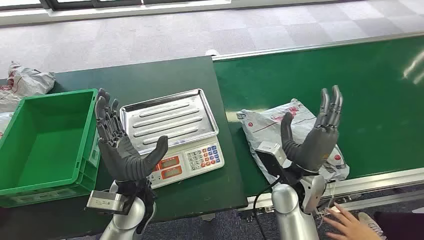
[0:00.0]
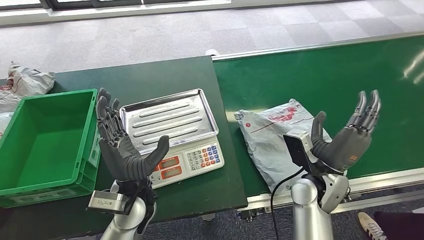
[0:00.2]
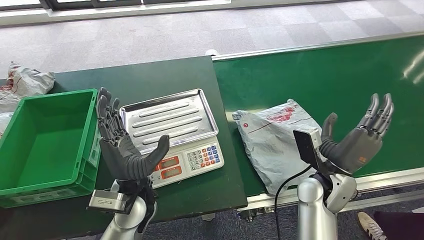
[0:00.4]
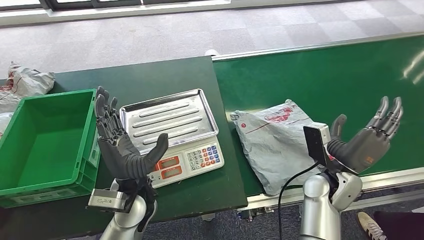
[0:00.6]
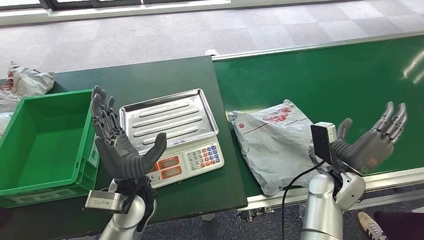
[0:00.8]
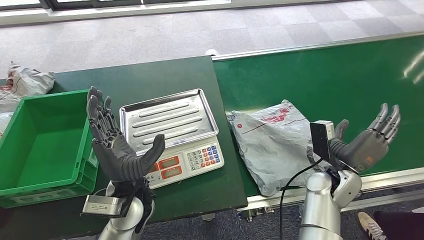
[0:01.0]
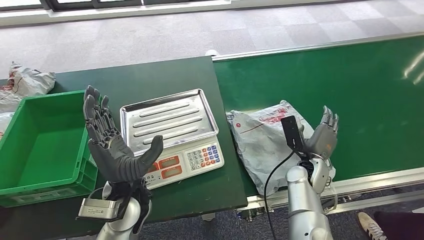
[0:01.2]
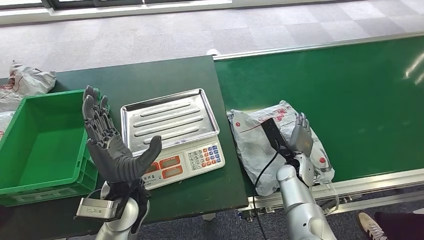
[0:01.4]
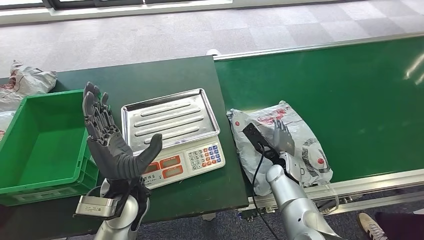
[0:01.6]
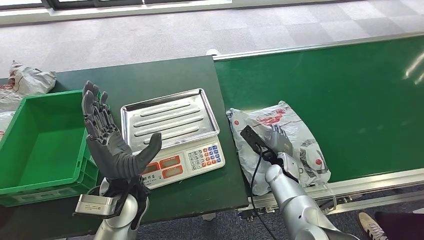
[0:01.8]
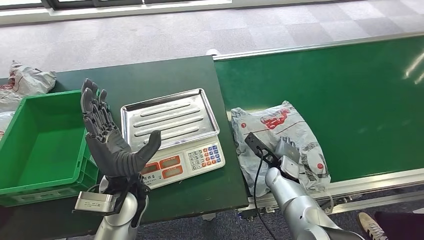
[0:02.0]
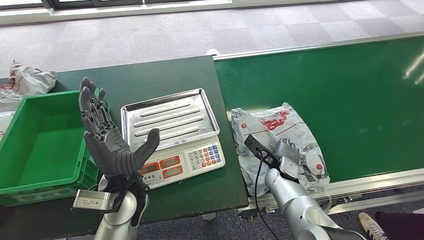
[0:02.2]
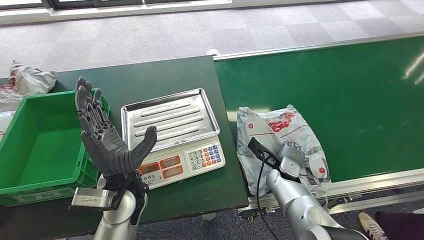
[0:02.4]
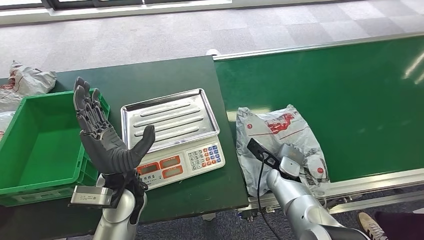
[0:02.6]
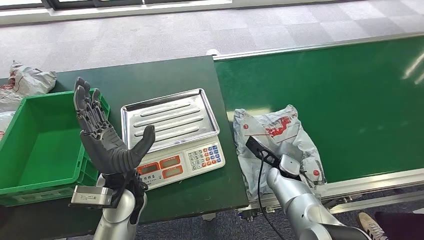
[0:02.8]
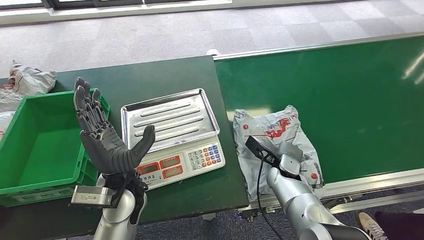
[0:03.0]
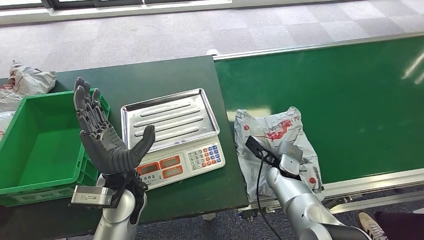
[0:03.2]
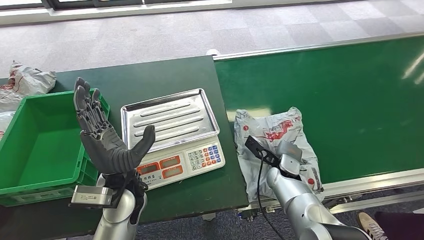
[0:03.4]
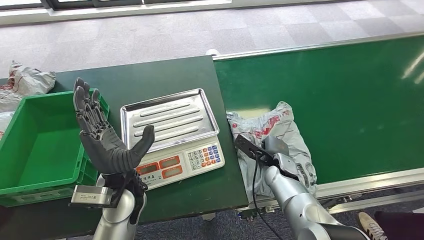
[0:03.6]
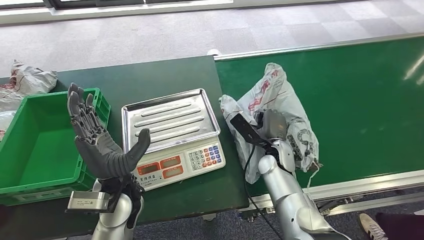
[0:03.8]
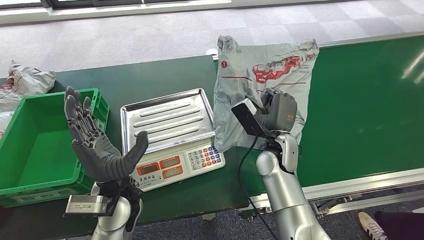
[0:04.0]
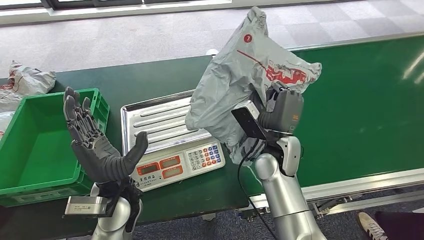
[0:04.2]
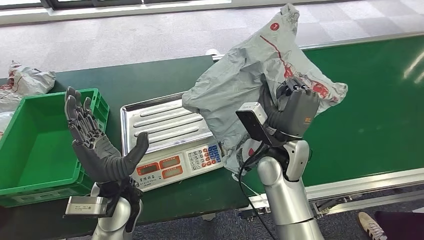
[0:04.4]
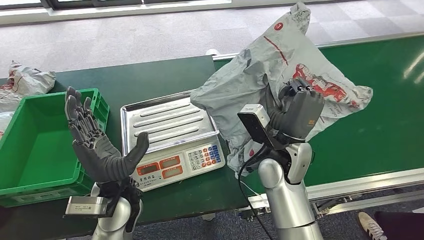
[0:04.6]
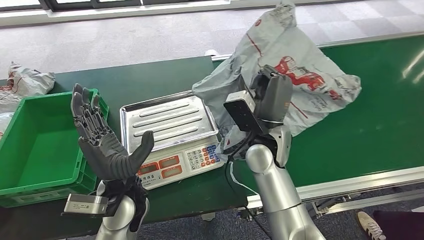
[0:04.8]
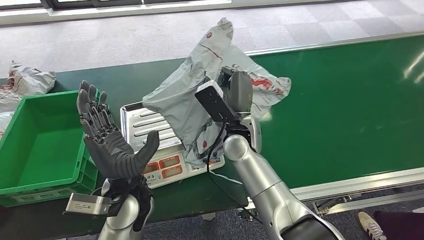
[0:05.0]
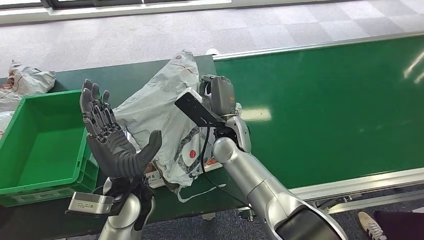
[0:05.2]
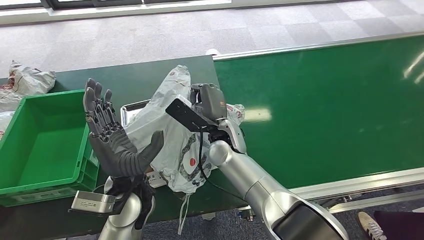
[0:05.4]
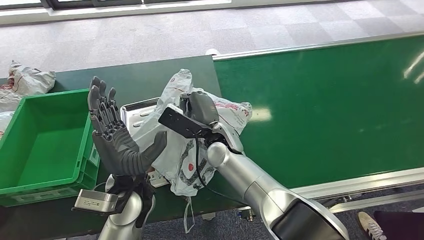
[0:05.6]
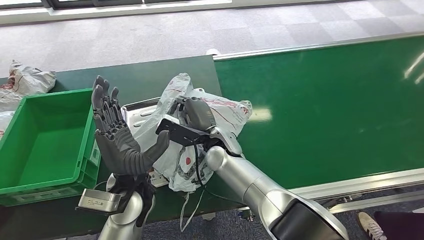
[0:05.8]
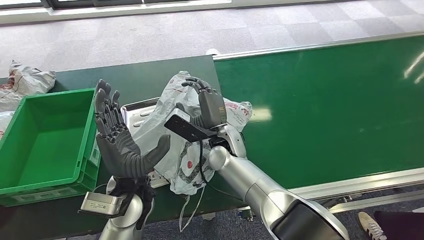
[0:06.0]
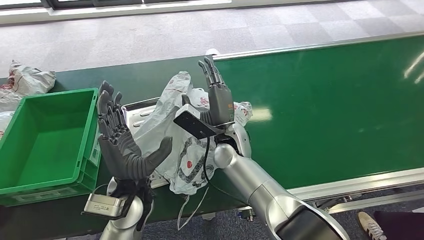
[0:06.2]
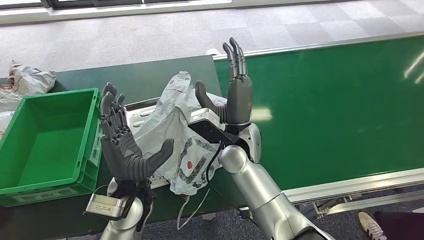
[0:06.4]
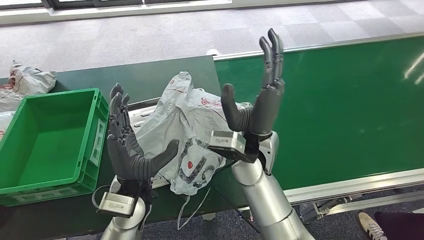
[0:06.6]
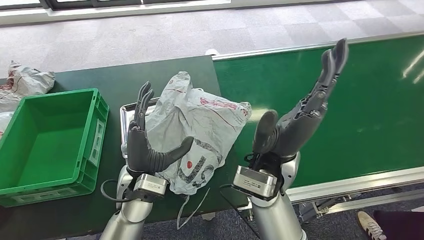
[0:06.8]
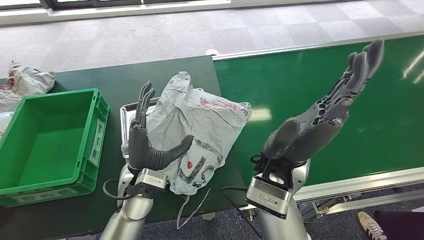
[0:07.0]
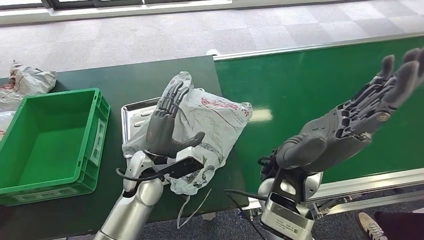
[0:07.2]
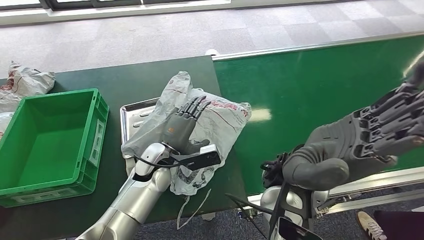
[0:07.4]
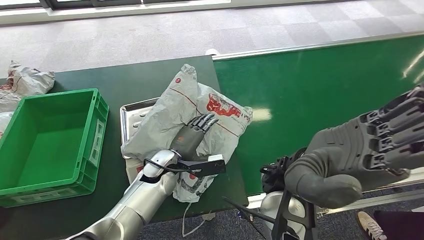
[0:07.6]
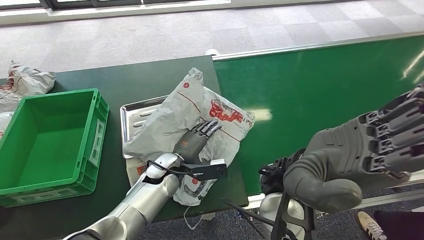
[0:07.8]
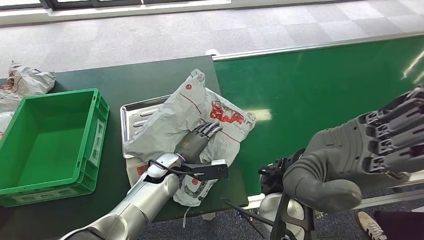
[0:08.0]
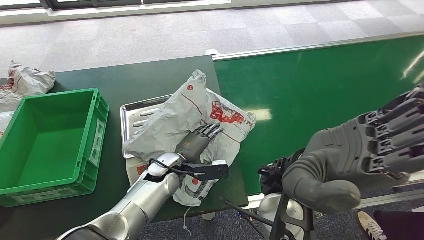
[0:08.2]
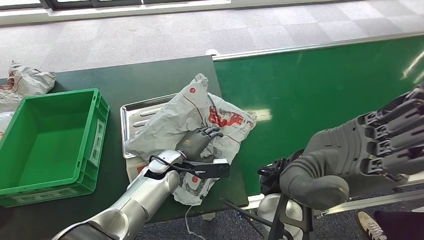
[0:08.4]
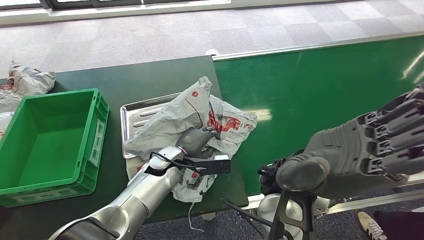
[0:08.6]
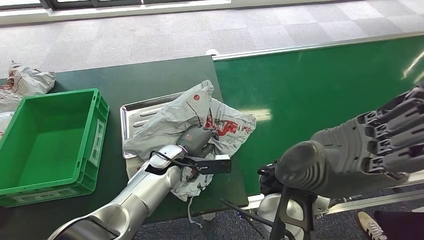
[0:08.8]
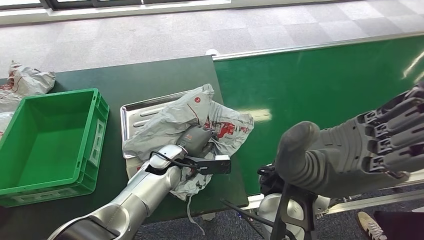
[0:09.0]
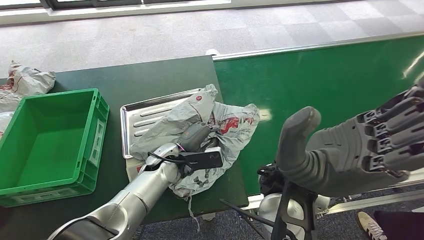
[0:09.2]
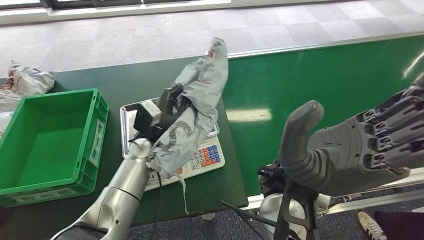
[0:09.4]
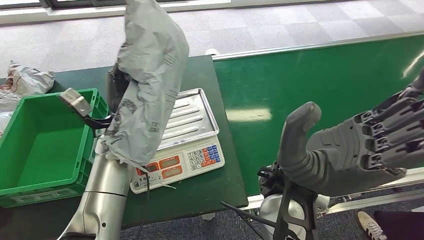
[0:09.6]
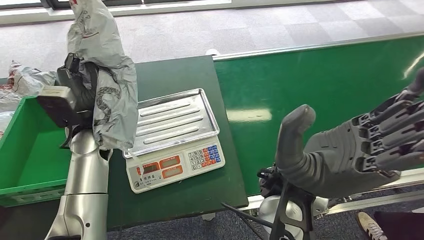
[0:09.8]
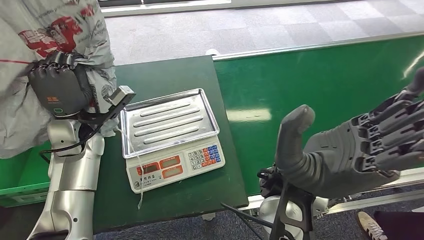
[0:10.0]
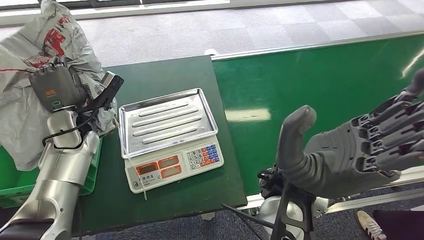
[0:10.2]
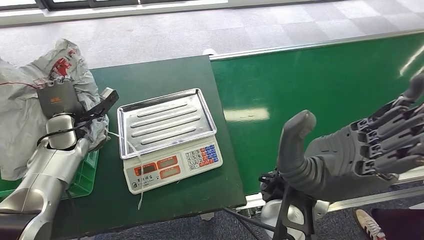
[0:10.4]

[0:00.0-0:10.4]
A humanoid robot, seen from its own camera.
Step, 0:00.0 to 0:03.8: Pick up the package from the conveyor belt.
Step, 0:04.0 to 0:07.8: Place the package onto the inbound machine.
Step, 0:08.2 to 0:09.8: Pick up the package from the inbound machine.

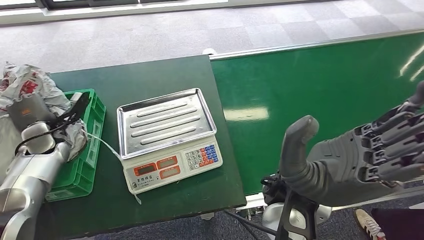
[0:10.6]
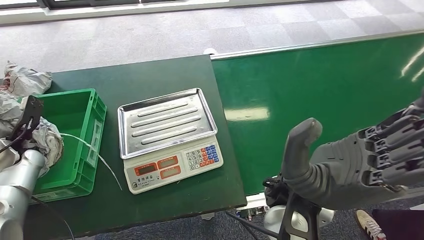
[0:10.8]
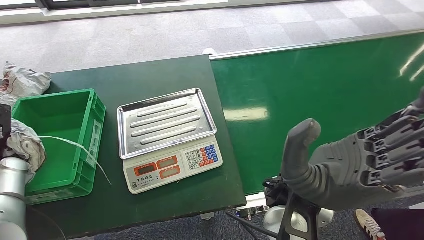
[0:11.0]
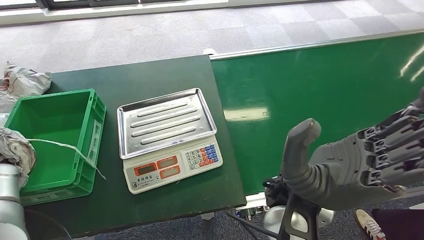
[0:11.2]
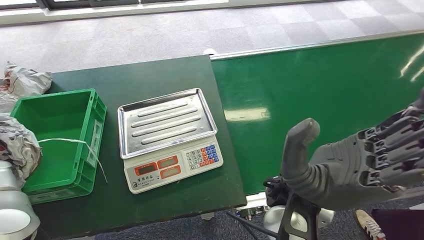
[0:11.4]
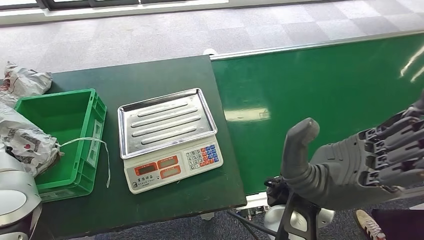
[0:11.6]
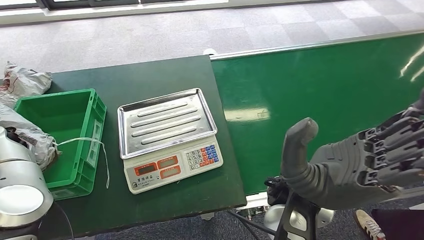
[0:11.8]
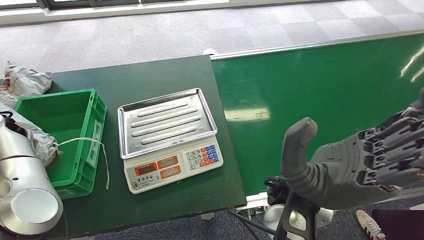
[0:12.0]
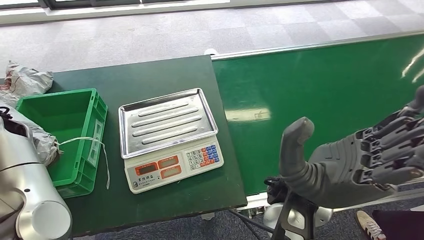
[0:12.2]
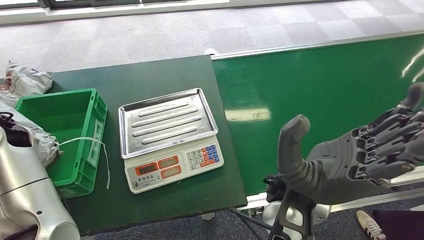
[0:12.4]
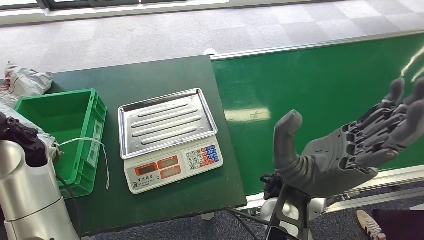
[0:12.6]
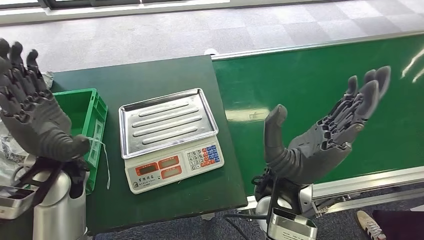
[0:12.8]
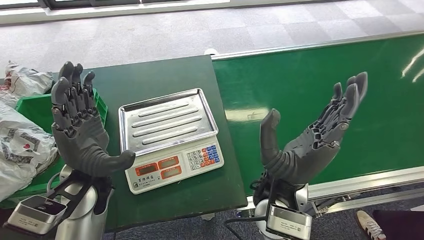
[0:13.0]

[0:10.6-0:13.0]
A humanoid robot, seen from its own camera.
Step, 0:10.6 to 0:13.0: Place the package into the parcel locker.
0:10.6 to 0:11.8: The left hand shifts approximately 10 cm upward and to the left.
